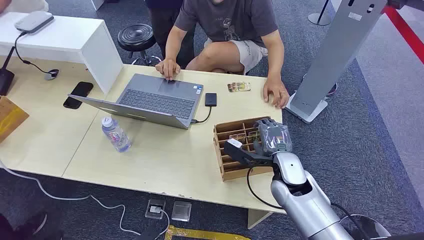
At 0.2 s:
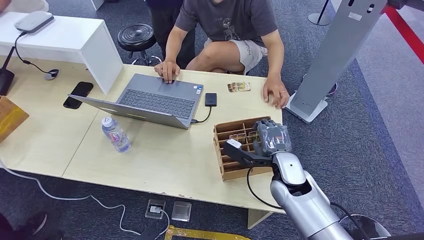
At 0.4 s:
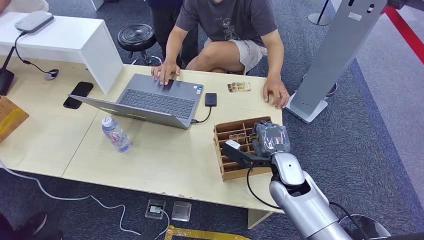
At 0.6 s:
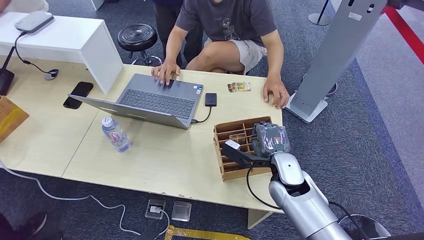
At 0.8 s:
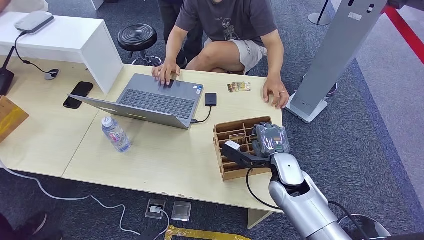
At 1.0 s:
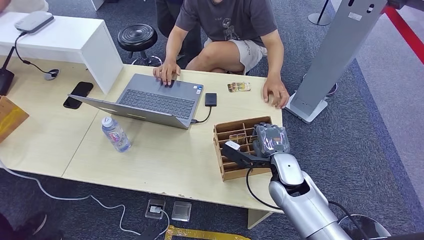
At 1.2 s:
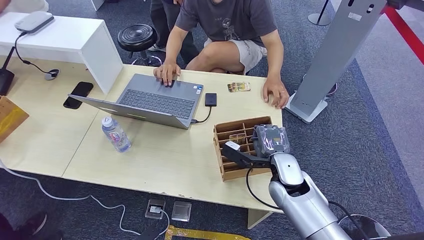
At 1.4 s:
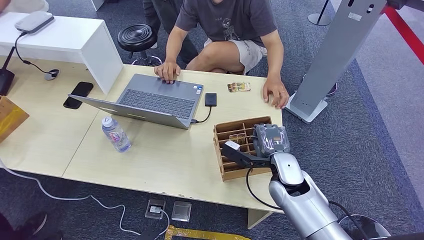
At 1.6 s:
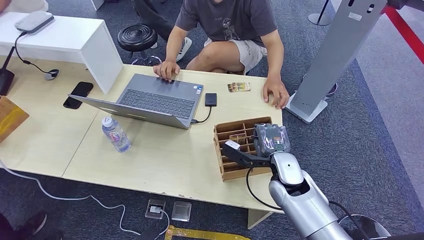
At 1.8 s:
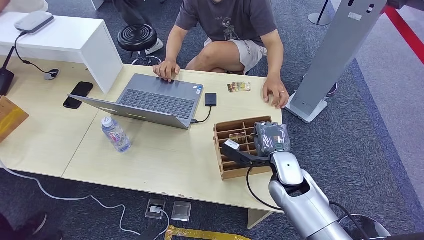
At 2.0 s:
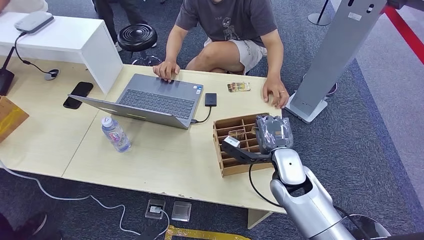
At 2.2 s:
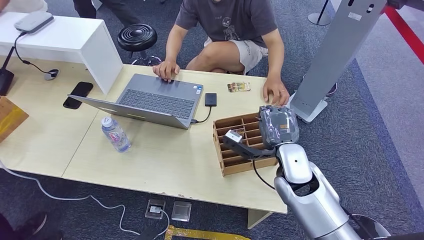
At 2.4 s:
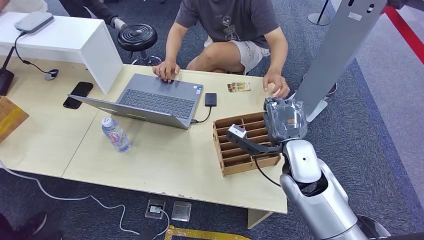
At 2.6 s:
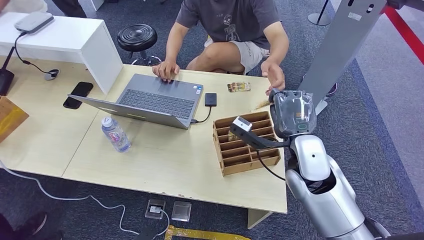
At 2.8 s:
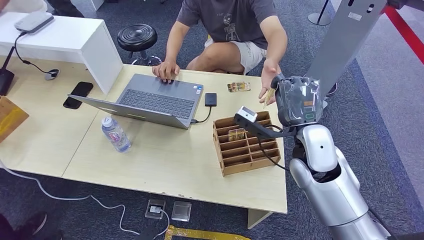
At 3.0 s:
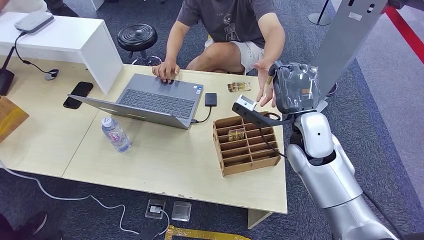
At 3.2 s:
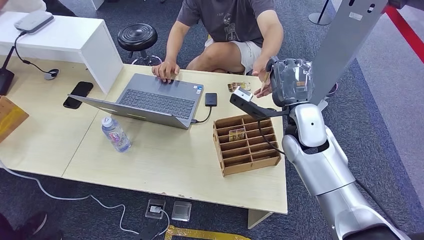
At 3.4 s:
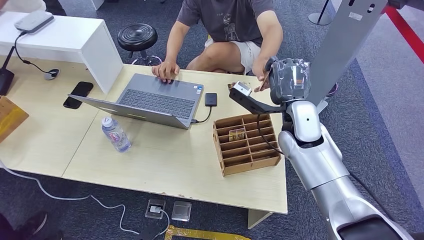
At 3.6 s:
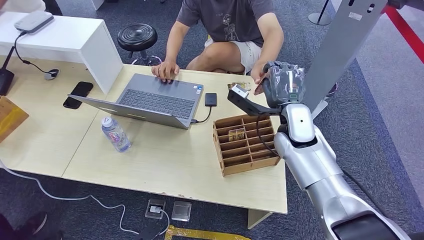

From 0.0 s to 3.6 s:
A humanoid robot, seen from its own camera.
Task of the whole recording: Pick up the card and hand it over to the target person.
Step, from 0.0 s to 2.0 s: Pick up the key card from the card box.
Step, from 2.4 s to 3.6 s: Hand the key card to the target.
From 1.8 s to 3.6 s: The right hand moves forward, roughly 10 cm.
